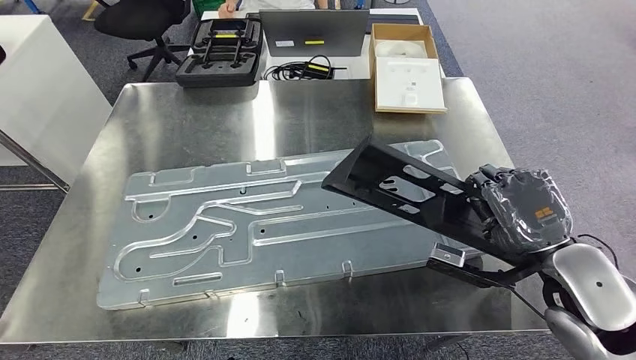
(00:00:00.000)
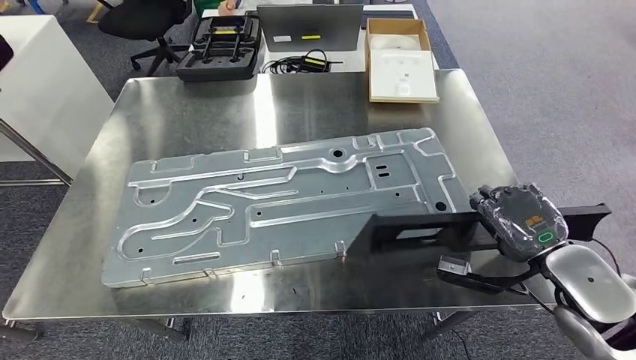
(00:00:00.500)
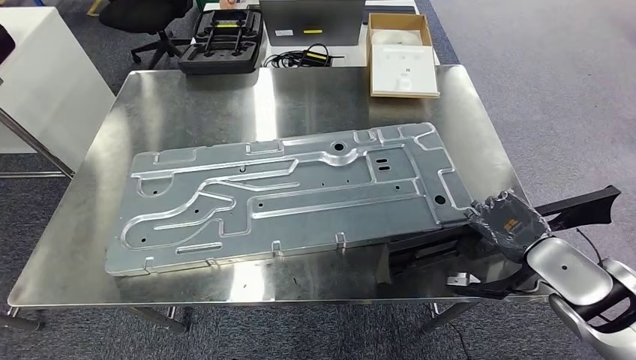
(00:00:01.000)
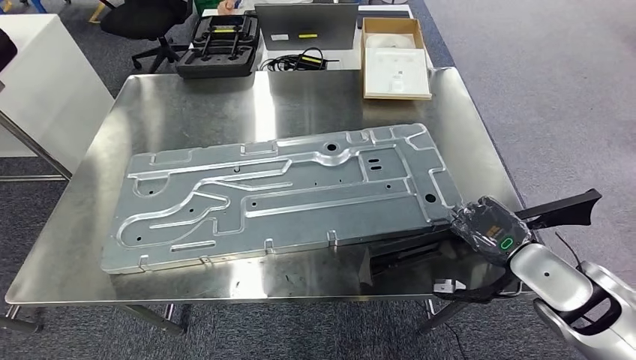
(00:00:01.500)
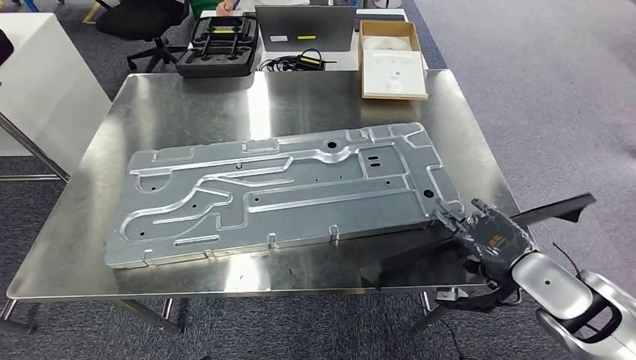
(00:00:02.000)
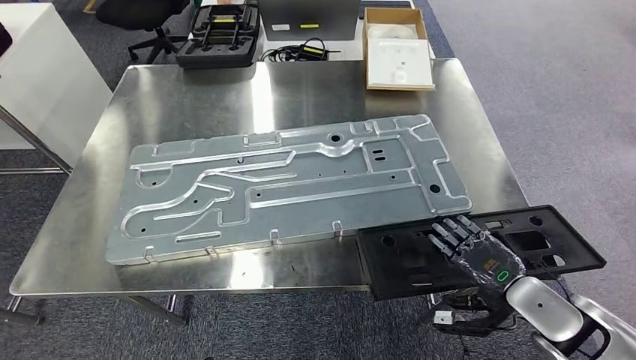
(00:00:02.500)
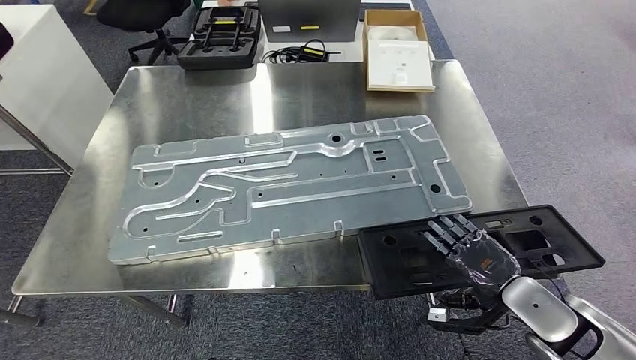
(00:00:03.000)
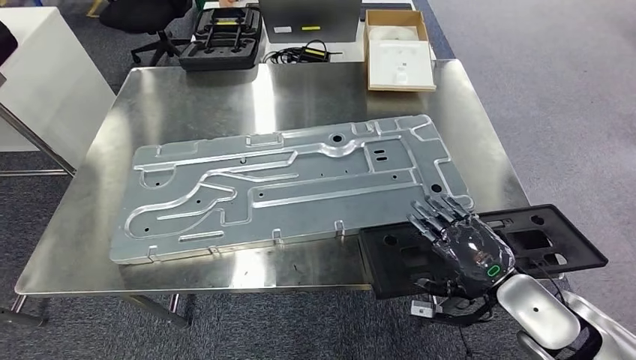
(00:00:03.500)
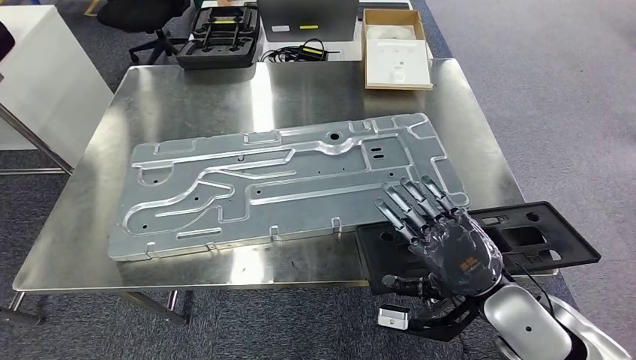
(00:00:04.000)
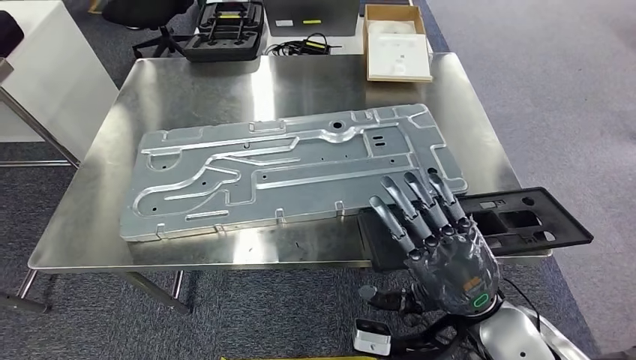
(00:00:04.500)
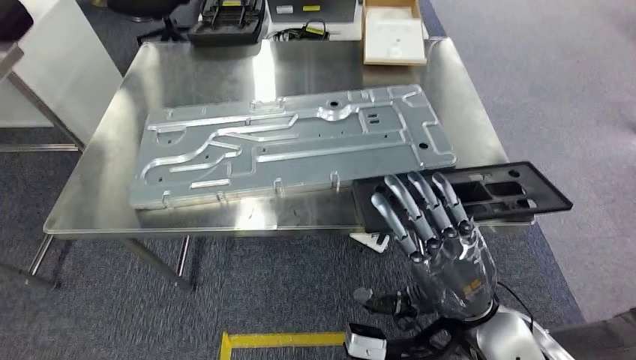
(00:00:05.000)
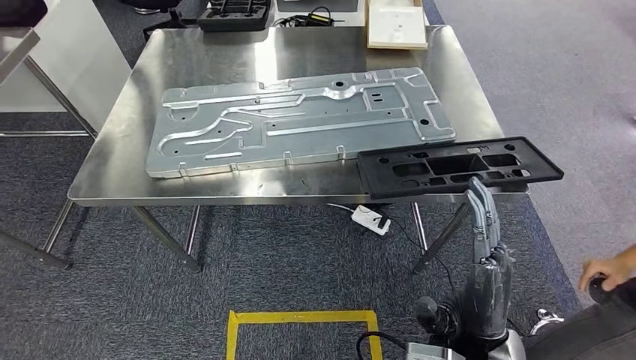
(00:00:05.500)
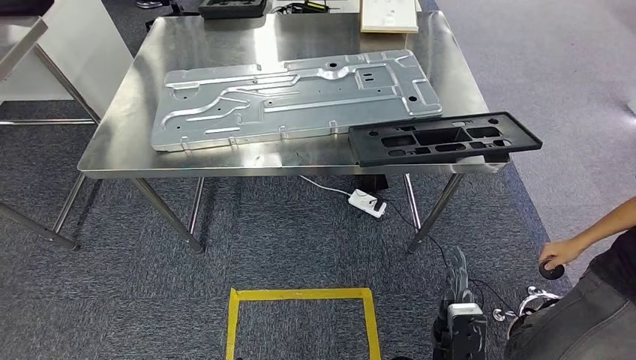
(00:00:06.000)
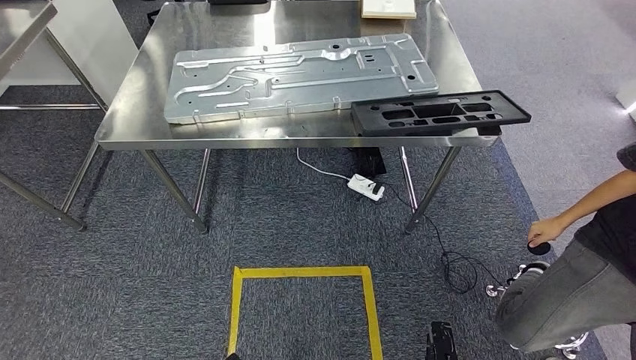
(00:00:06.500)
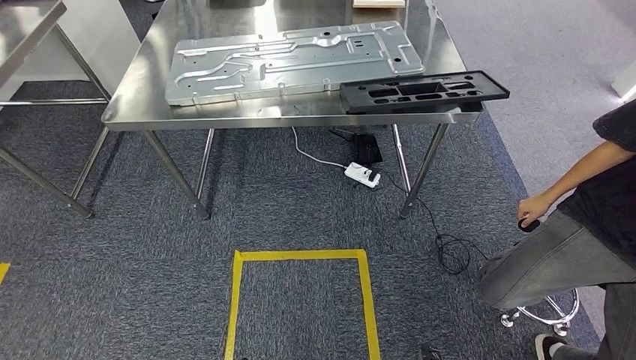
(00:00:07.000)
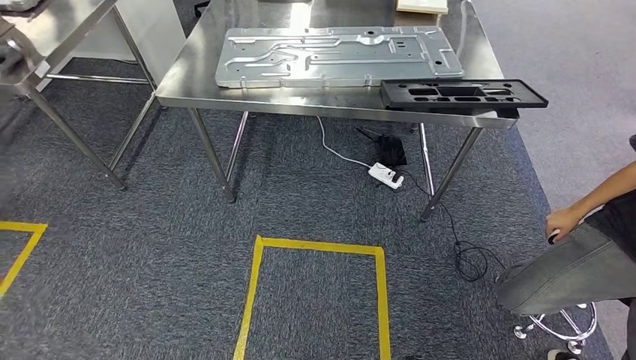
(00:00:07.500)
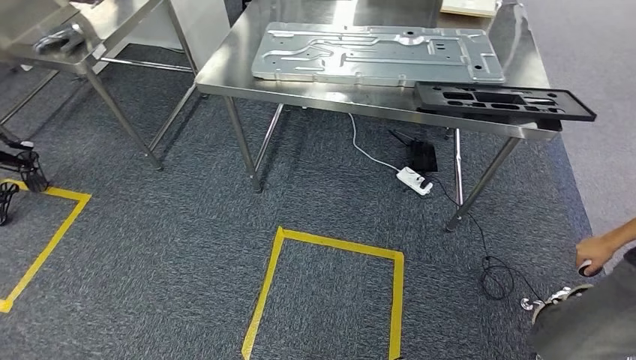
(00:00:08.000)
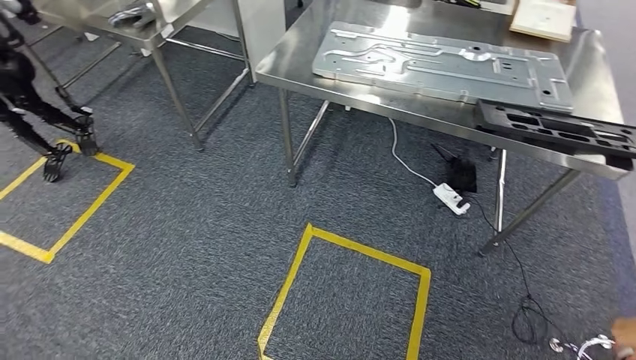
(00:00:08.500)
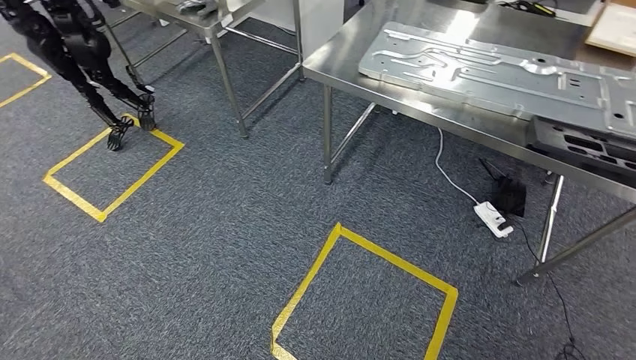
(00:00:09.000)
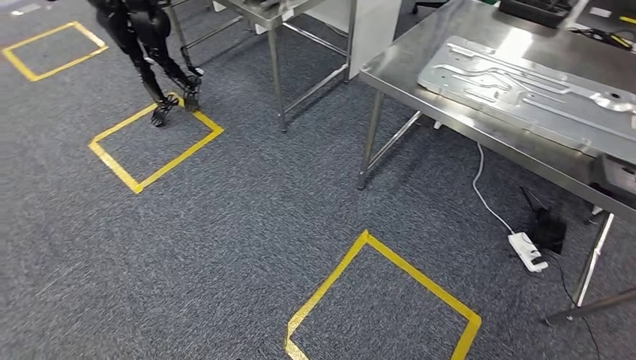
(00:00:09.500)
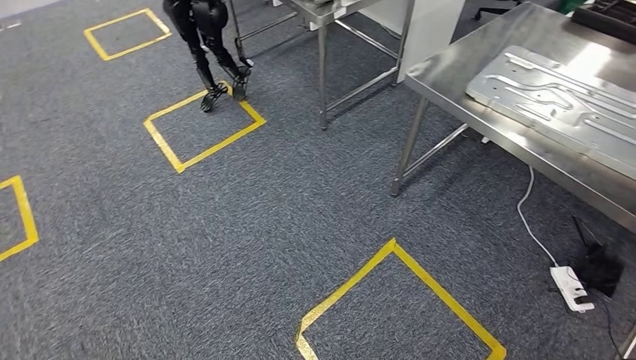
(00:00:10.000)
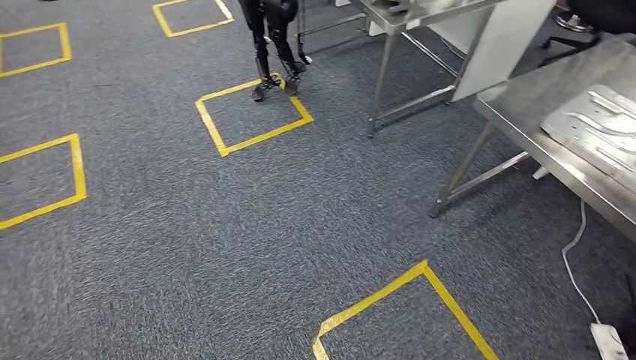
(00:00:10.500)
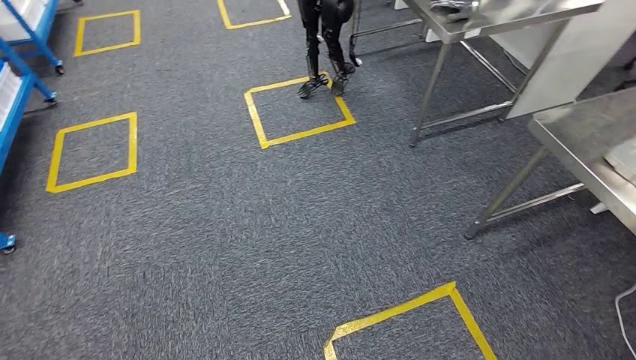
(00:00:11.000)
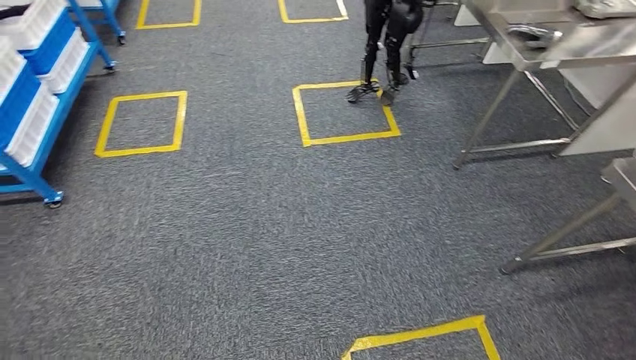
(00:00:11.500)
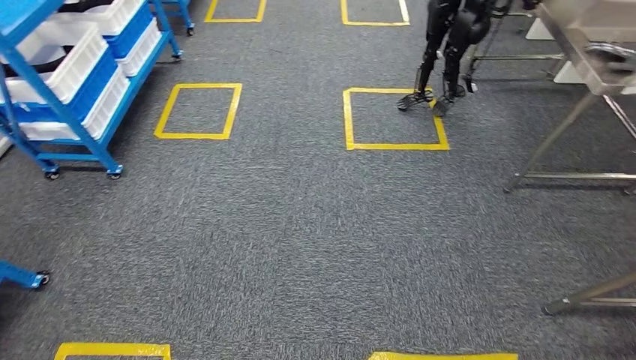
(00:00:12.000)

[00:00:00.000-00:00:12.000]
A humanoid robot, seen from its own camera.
Step, 00:00:02.000 to 00:00:10.500: Insert the large material into the corresponding hole on the workbench.

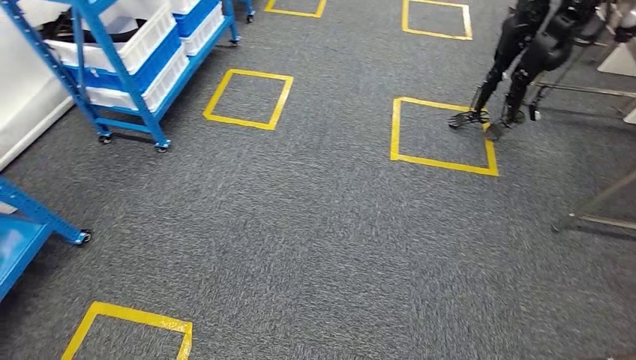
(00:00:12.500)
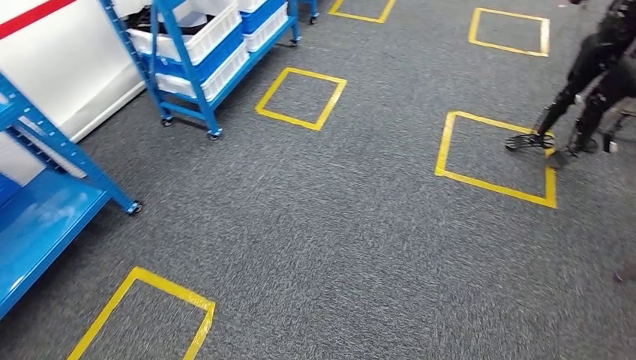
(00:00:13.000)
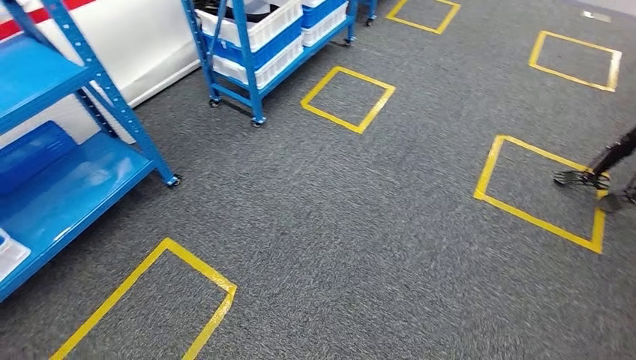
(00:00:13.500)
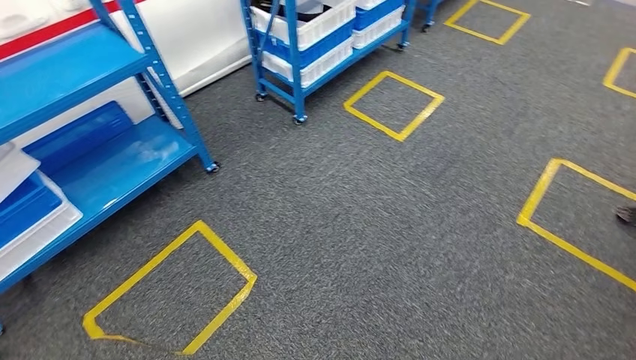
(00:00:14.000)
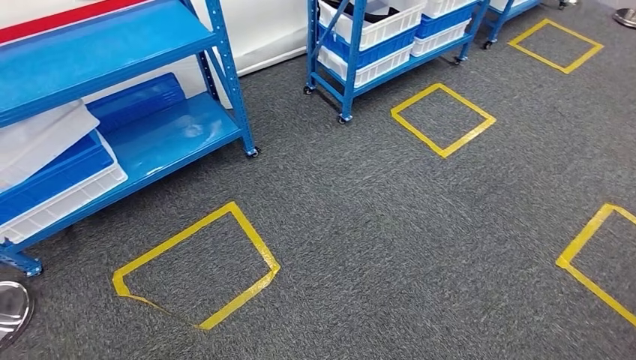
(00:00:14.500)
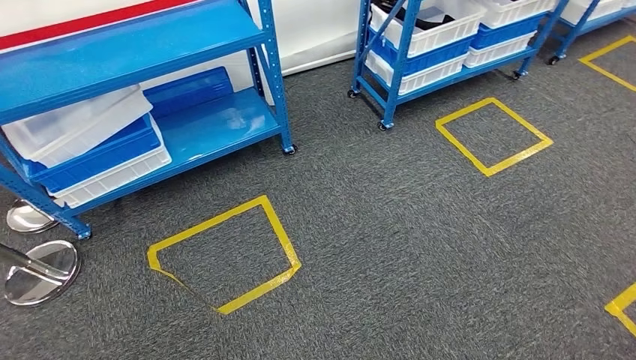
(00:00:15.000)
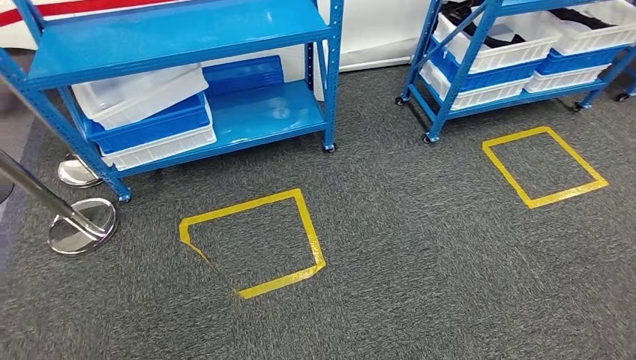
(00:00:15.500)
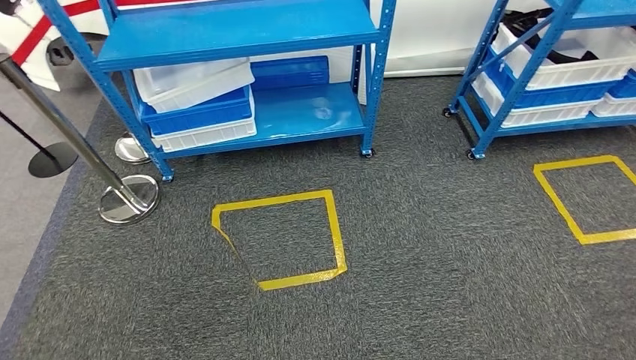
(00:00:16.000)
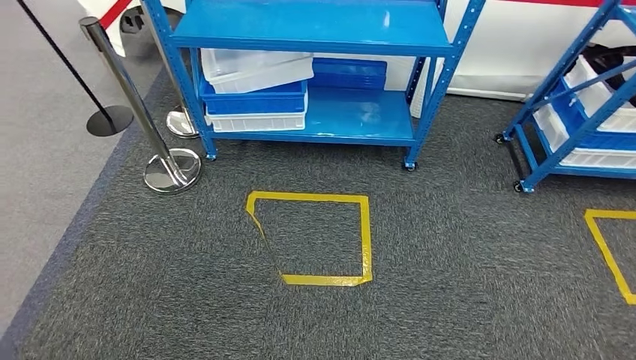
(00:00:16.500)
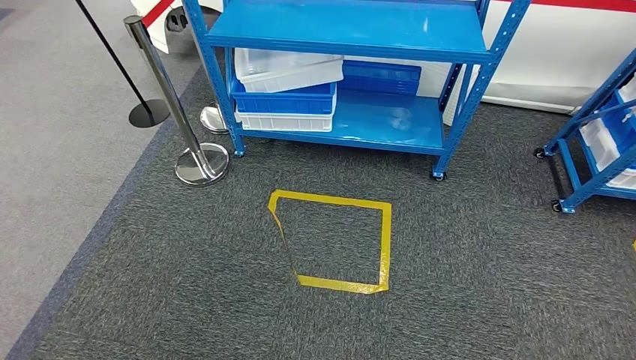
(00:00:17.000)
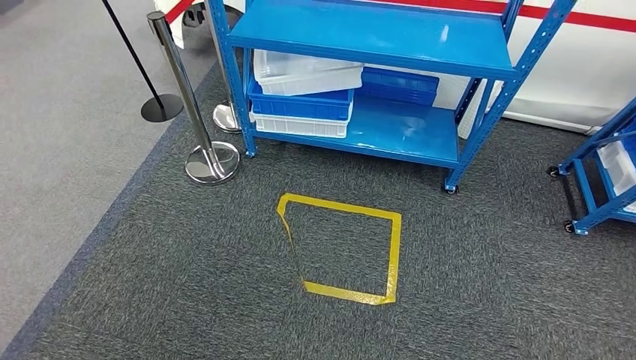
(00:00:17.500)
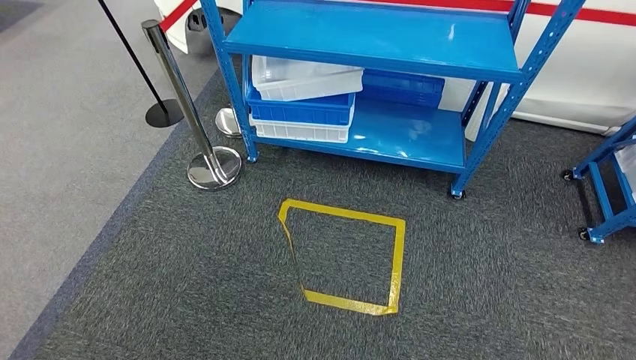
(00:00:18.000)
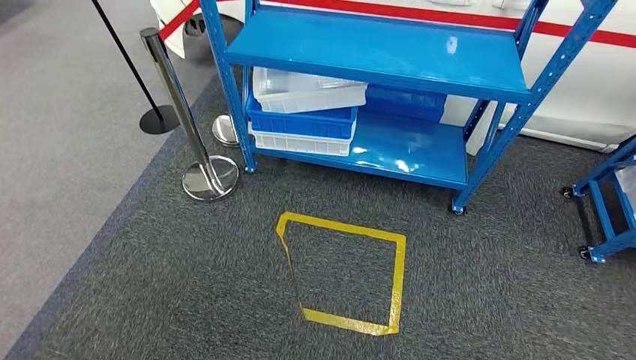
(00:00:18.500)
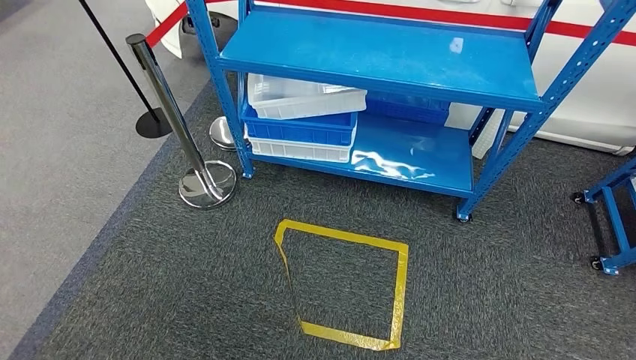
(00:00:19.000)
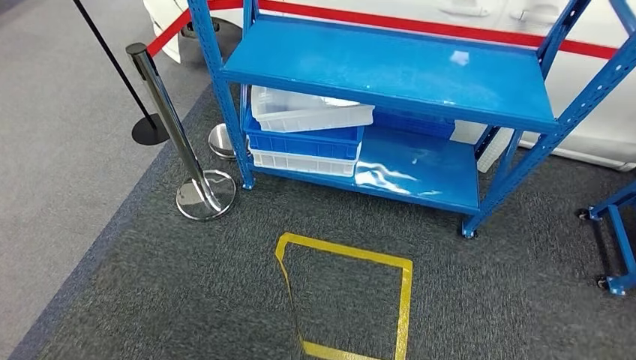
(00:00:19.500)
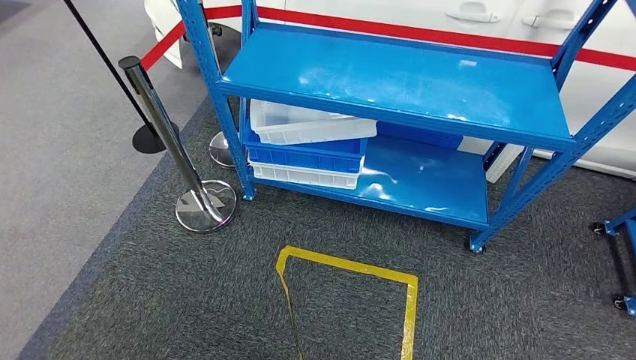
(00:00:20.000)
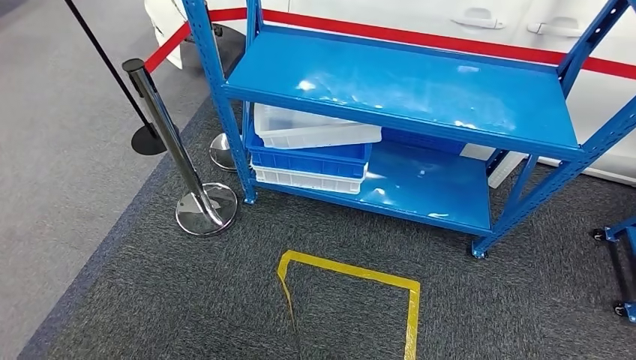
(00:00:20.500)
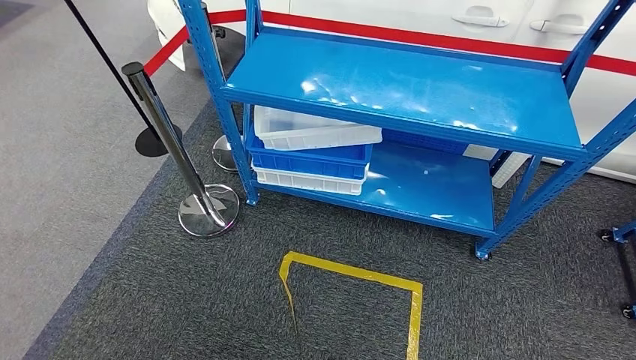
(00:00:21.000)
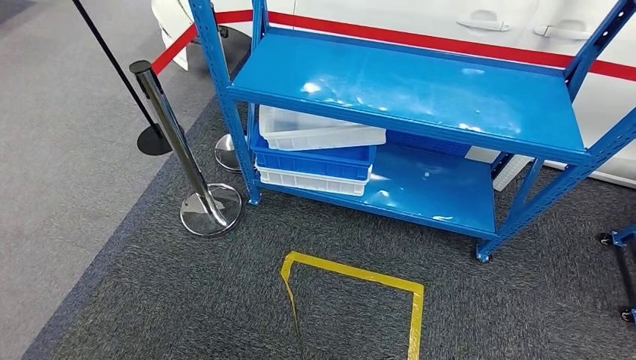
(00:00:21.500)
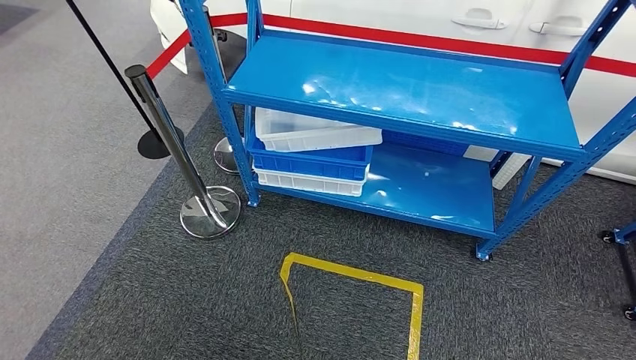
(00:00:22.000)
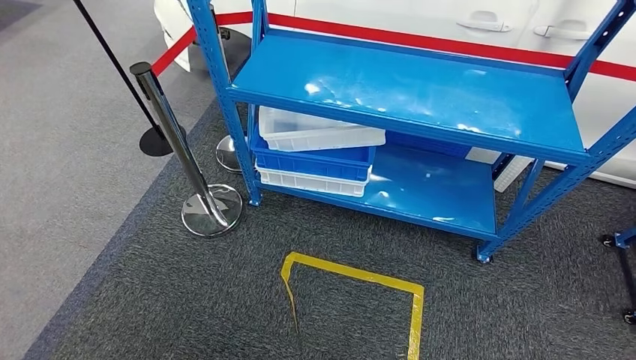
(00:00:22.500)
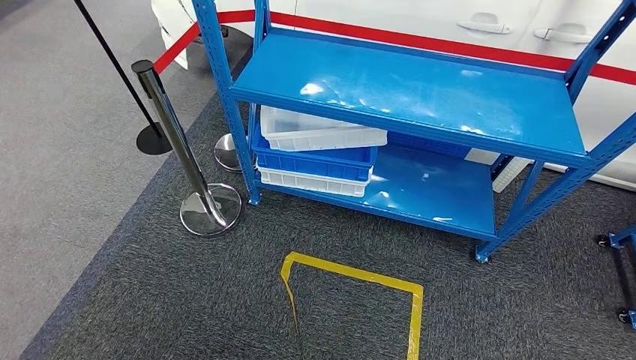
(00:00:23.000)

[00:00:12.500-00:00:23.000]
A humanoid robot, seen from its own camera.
Step, 00:00:12.500 to 00:00:23.000: Move to the initial position of the shelf.
00:00:21.000 to 00:00:23.000: The right hand goes forward and backward, approximately 10 cm each way, reversing 2 times. The left hand moves to the left and backward, about 15 cm.
